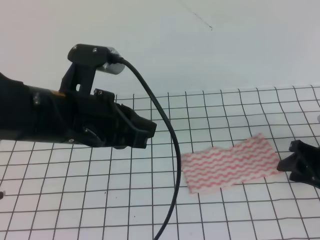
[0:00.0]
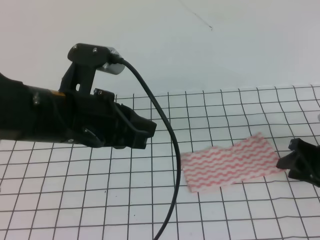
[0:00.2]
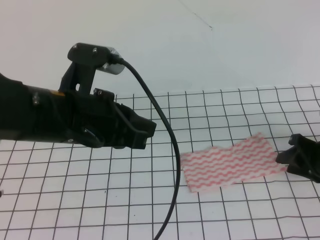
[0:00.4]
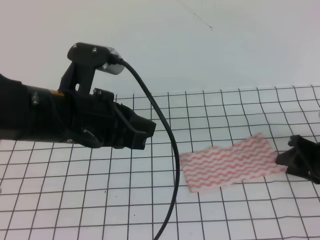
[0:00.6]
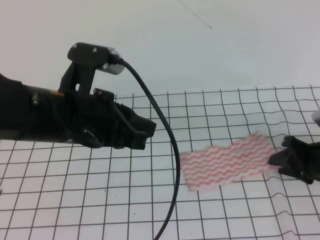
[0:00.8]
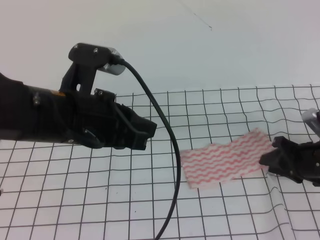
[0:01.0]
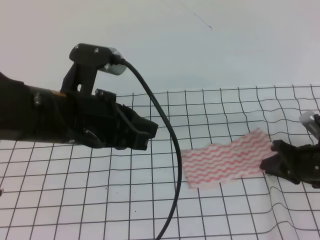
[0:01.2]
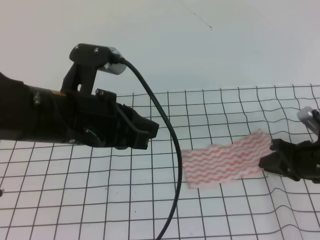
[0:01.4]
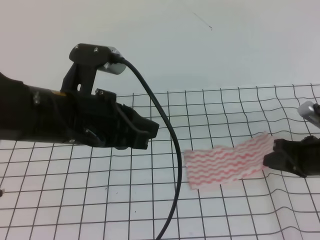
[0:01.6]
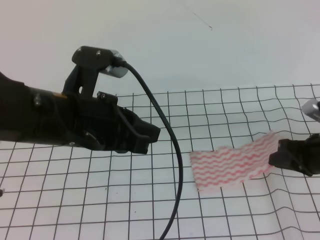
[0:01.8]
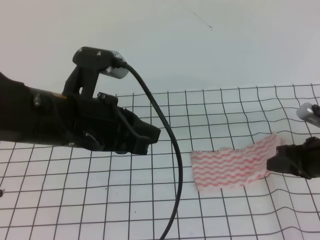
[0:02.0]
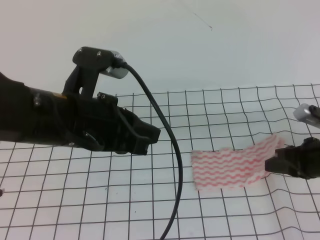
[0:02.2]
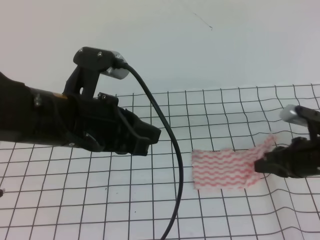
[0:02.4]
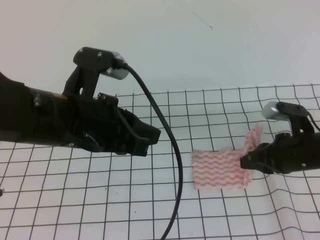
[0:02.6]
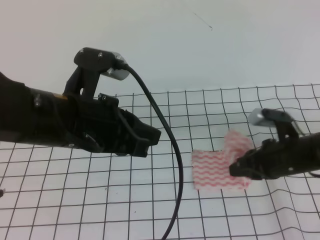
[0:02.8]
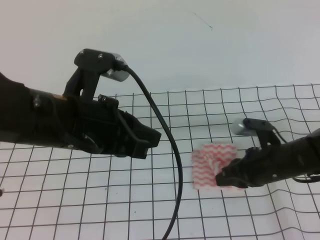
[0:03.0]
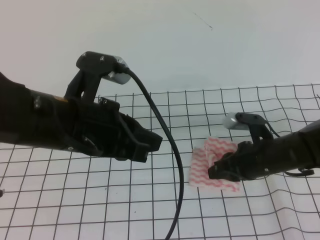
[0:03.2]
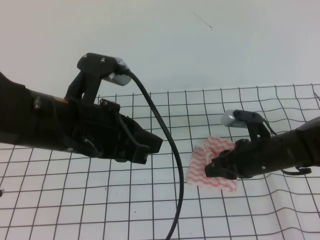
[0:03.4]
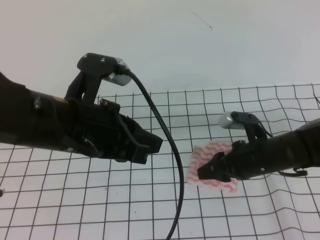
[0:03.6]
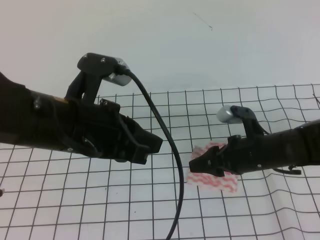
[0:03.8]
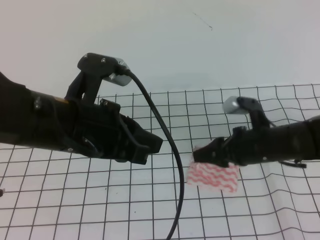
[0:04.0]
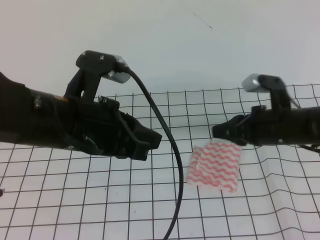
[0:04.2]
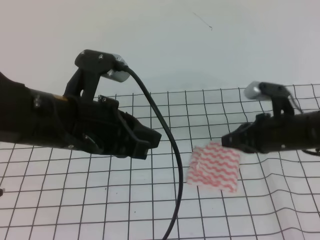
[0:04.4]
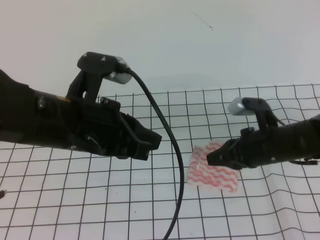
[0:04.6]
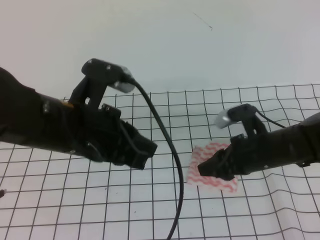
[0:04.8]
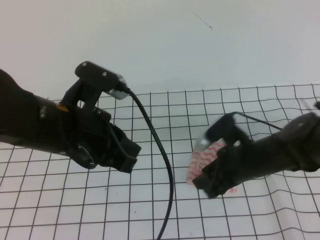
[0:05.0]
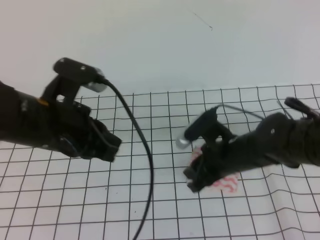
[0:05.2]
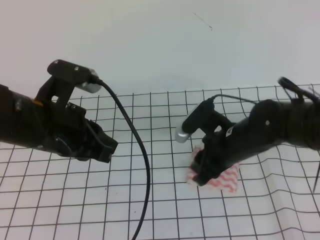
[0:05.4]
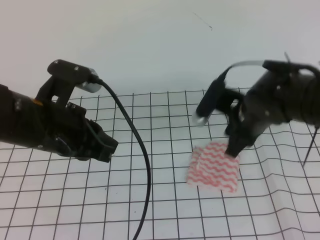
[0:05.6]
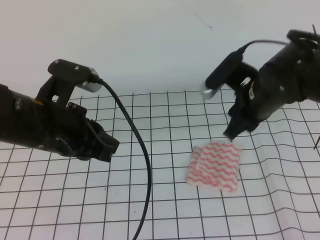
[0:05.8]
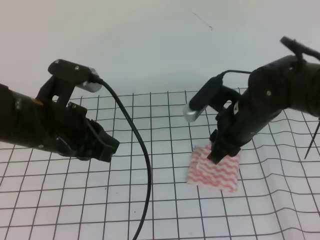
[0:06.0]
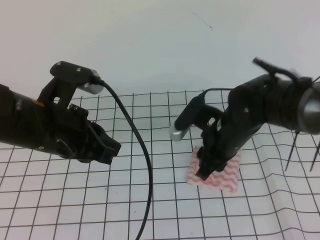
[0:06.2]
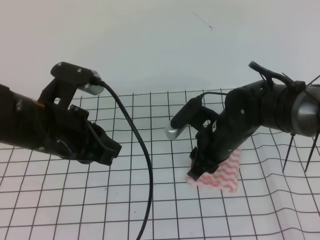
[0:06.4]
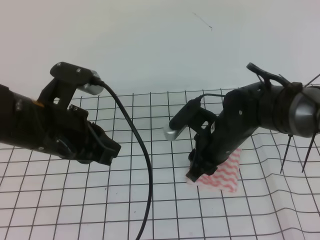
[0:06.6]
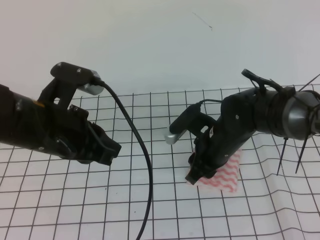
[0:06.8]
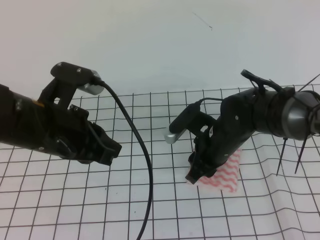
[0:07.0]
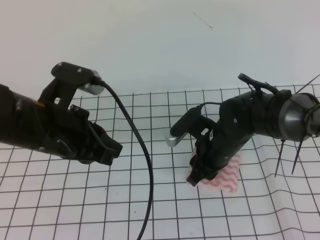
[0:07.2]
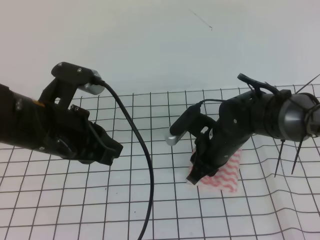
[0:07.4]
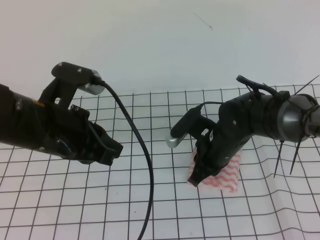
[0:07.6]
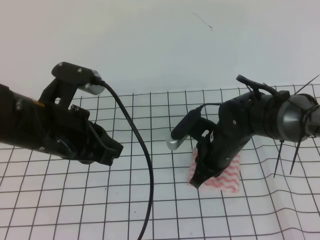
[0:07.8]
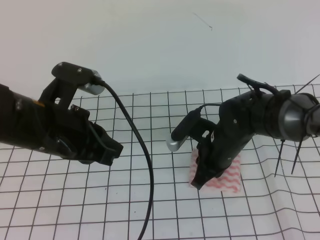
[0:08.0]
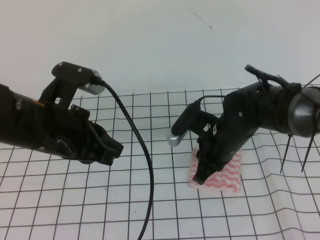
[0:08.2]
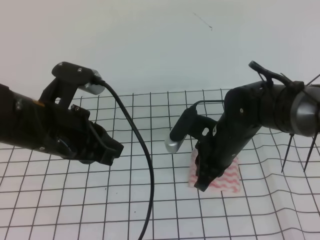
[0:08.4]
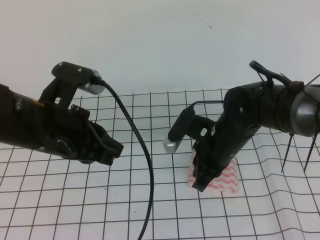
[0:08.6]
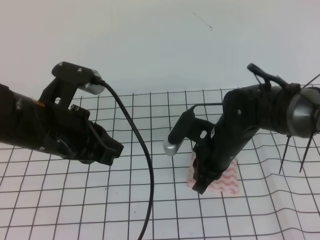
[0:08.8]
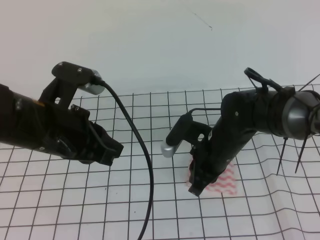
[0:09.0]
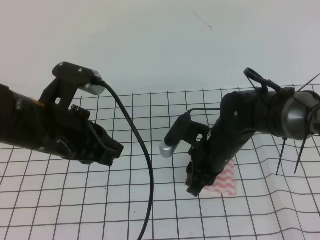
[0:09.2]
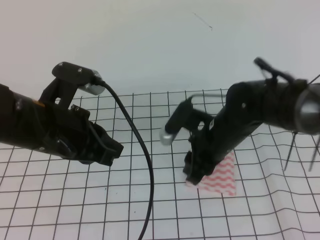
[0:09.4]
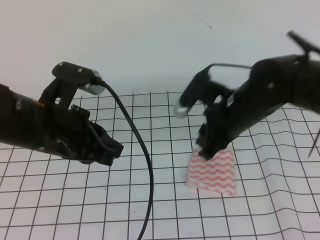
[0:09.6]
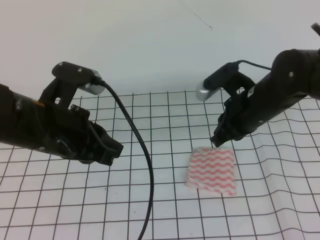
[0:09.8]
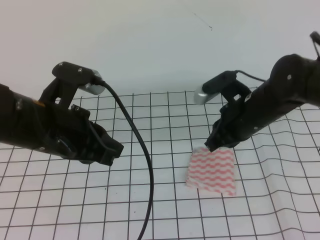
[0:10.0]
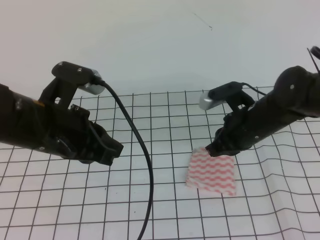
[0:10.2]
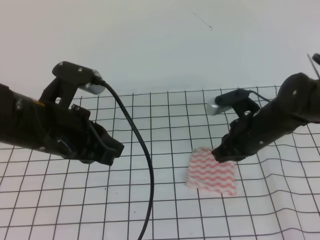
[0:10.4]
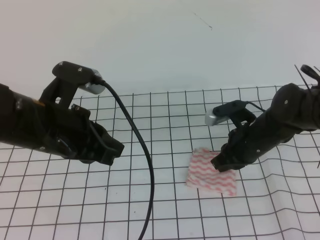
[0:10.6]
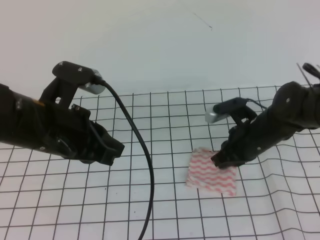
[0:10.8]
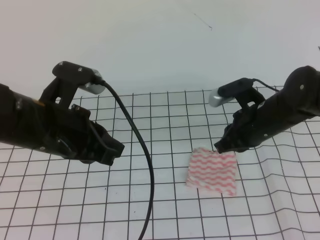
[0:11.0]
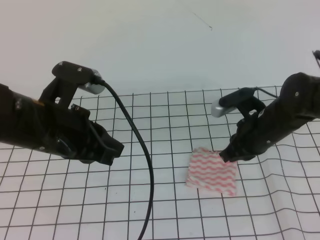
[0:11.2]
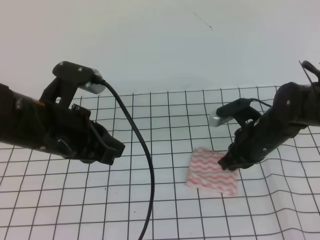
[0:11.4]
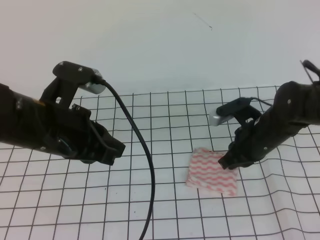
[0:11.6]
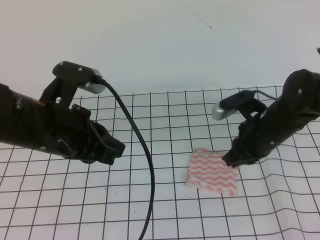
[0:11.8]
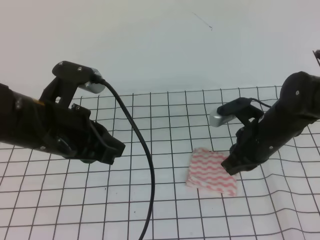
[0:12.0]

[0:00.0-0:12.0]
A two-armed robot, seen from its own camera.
0:00.0 to 0:01.6: The right gripper closes its fingers.
0:01.6 to 0:03.0: The right gripper moves to the left, some 10 cm.
0:03.0 to 0:04.4: The right gripper opens, then closes once more.
0:04.4 to 0:06.0: The right gripper is displaced to the left by approximately 5 cm, and opens its fingers.
0:06.0 to 0:07.6: The right gripper shifts roughly 5 cm downward, and closes.
0:07.6 to 0:09.0: The grippers move only a little.
0:09.0 to 0:10.4: The right gripper moves to the right, some 5 cm, and opens, then closes again.
0:10.4 to 0:12.0: The grippers move only a little.

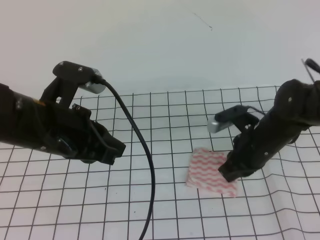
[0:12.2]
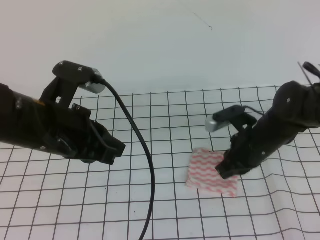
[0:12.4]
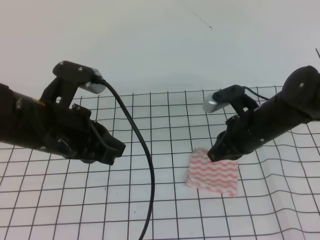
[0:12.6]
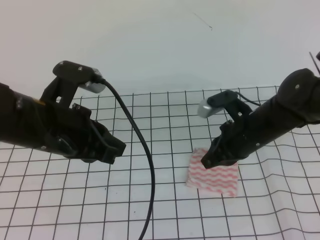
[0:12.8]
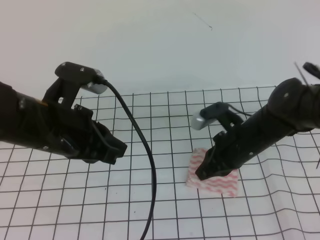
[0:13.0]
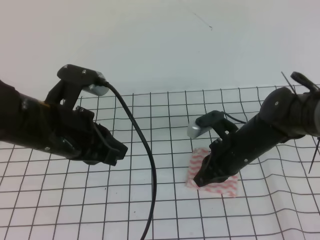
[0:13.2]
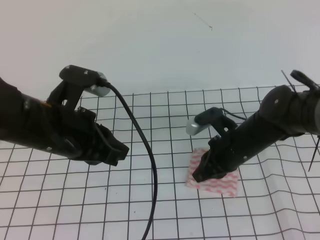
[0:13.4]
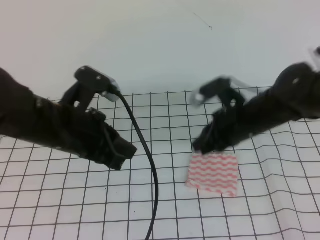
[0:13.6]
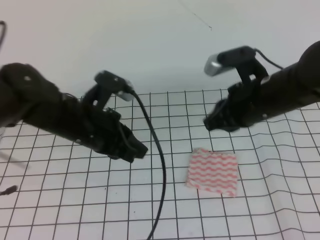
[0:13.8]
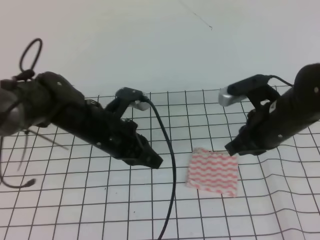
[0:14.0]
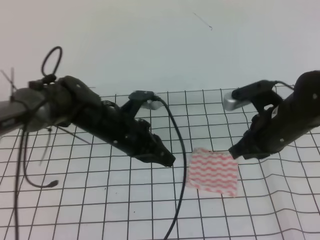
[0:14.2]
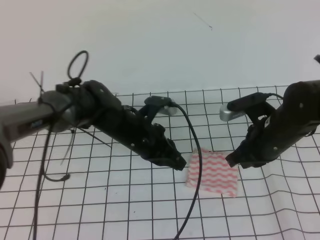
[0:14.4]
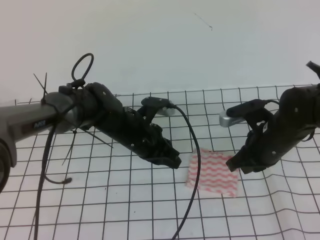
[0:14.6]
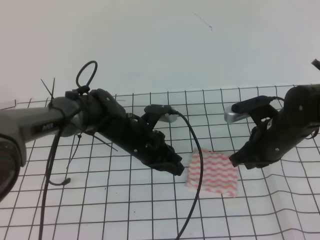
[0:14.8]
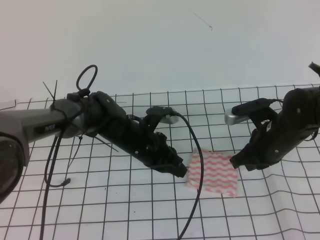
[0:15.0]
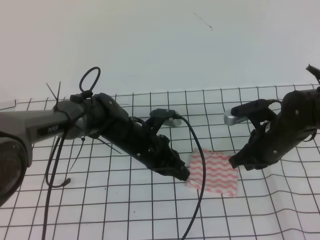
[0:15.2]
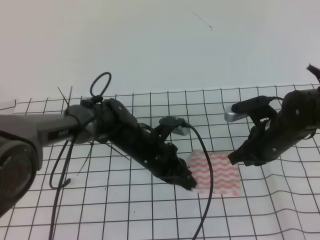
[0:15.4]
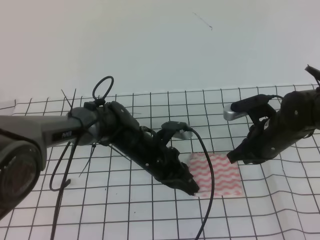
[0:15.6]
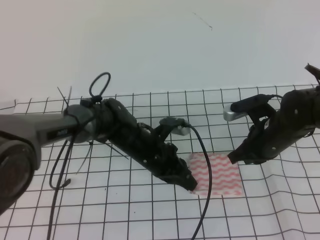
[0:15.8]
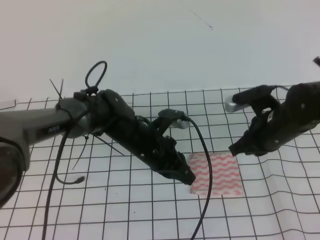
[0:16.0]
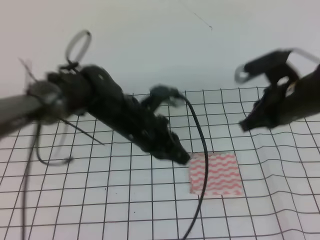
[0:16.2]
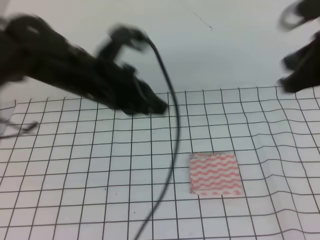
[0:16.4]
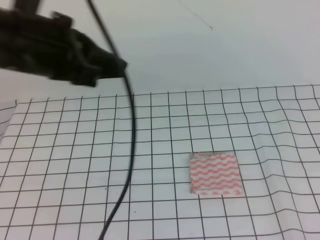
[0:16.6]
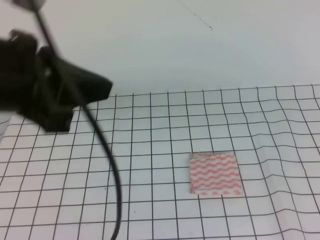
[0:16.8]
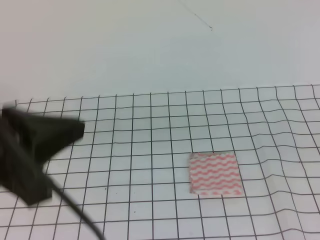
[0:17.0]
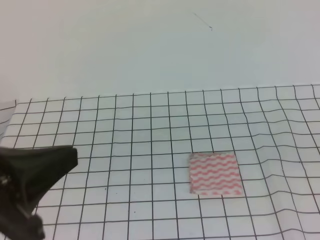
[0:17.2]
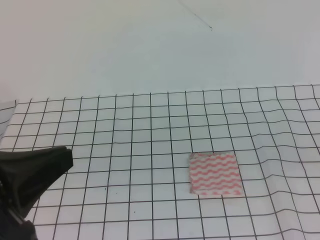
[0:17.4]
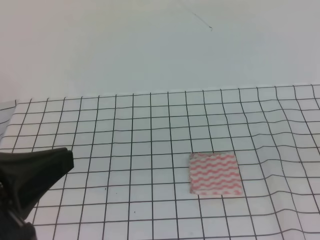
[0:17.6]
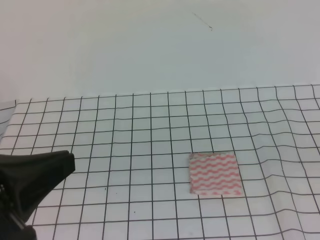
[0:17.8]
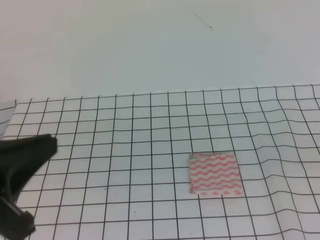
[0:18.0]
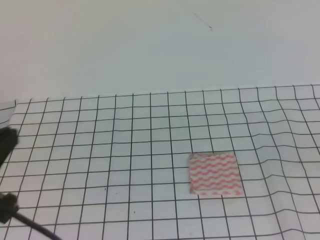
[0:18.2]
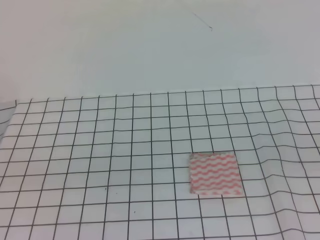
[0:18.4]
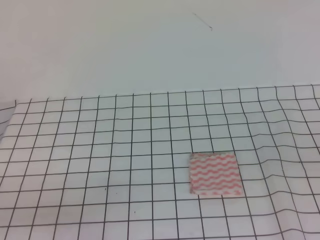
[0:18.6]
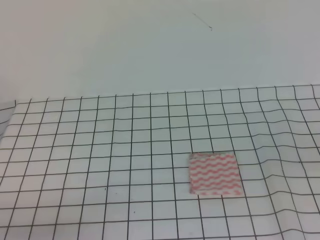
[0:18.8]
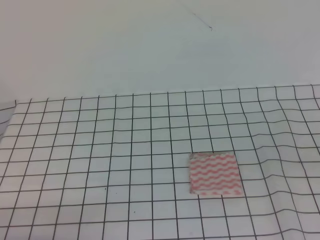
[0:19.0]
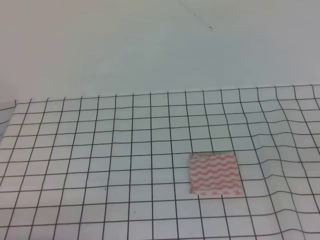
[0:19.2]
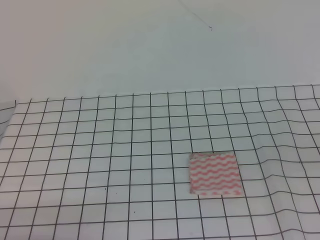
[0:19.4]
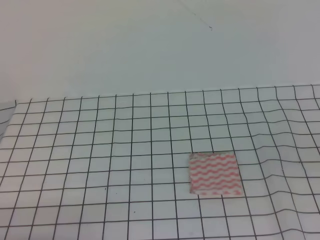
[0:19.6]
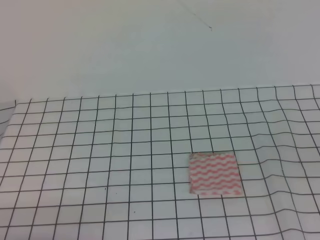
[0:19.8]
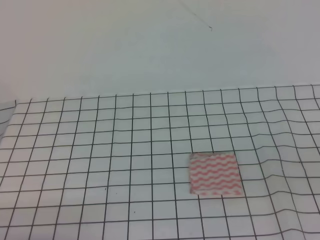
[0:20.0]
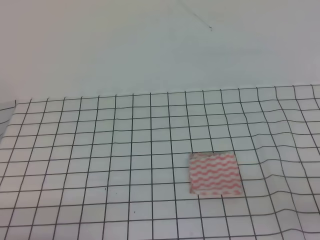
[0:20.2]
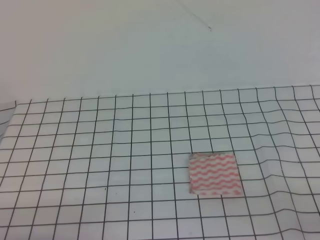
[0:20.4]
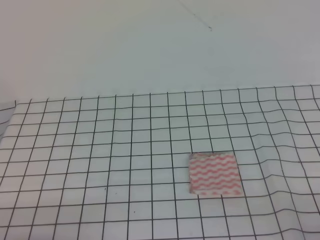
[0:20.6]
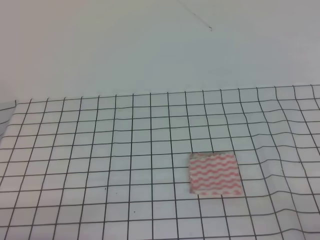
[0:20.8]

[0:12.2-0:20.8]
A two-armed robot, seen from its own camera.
0:12.2 to 0:13.6: The right gripper shifts by about 5 cm.
0:13.6 to 0:15.0: The left gripper is displaced downward, forward and to the right by roughly 20 cm, while the right gripper shifts some 5 cm to the right.
0:15.0 to 0:16.6: The two grippers go roughly 30 cm upward and backward.
0:16.6 to 0:18.0: The right gripper is displaced backward and downward by roughly 15 cm. Meanwhile the left gripper is displaced backward and to the left by roughly 20 cm.
0:18.0 to 0:19.4: The left gripper is displaced downward by roughly 20 cm.
